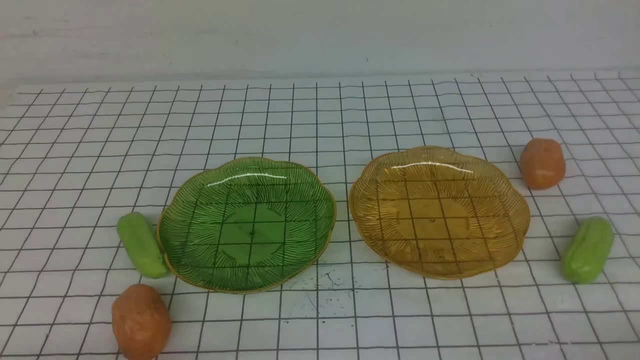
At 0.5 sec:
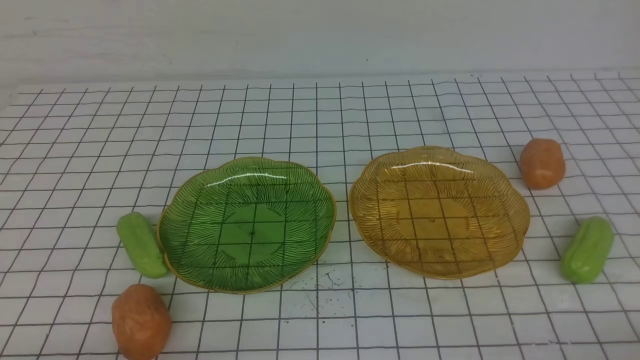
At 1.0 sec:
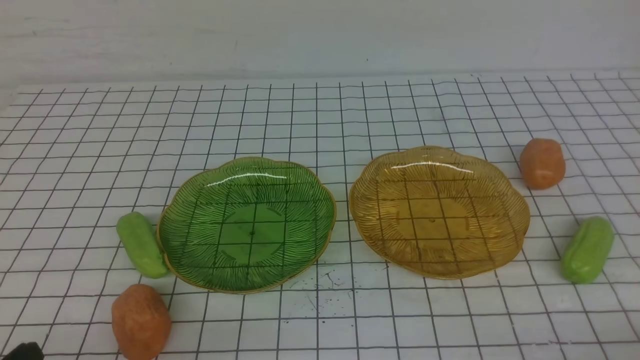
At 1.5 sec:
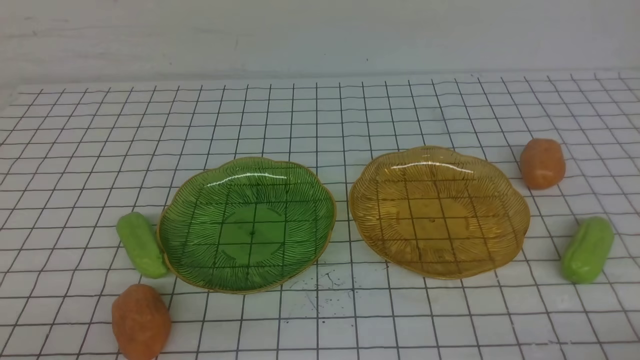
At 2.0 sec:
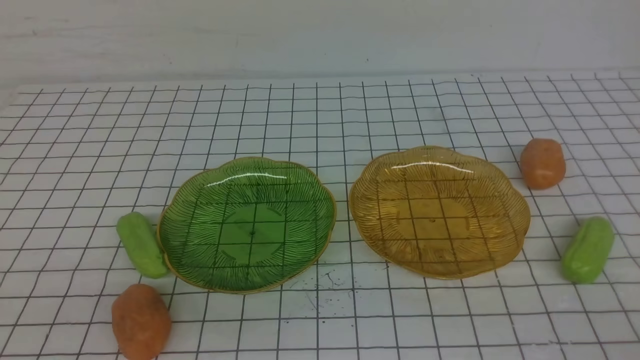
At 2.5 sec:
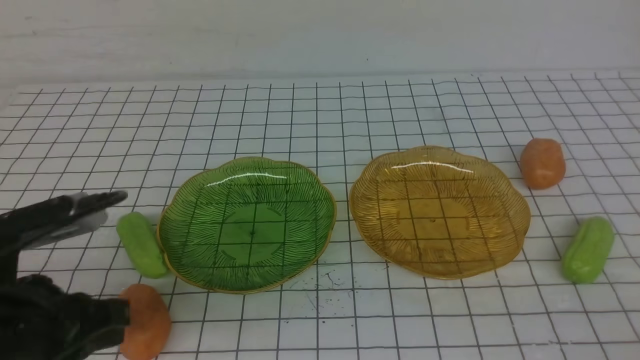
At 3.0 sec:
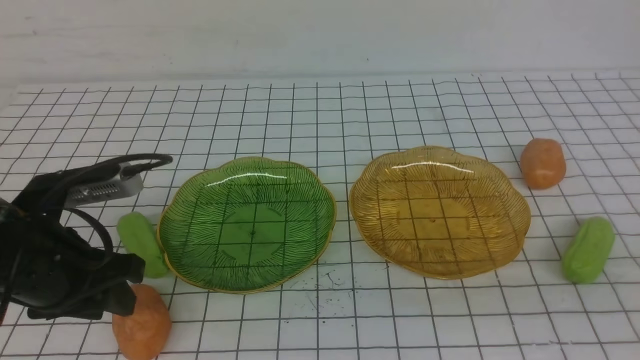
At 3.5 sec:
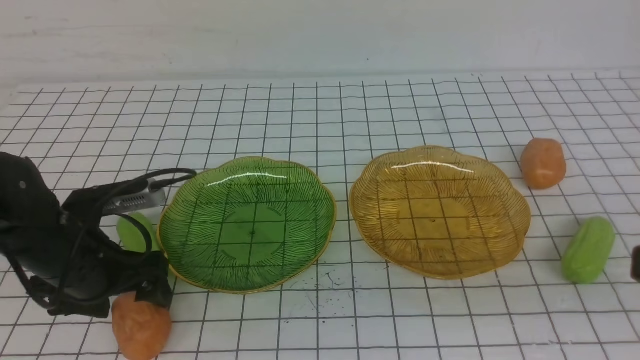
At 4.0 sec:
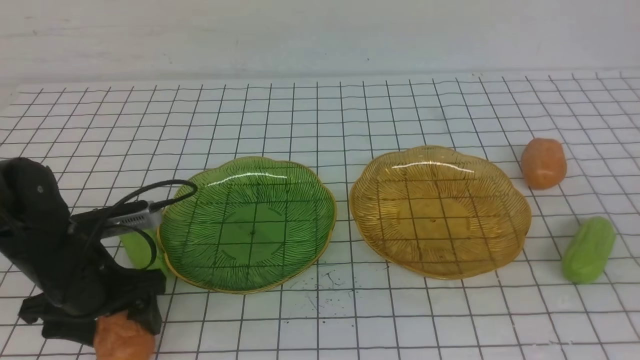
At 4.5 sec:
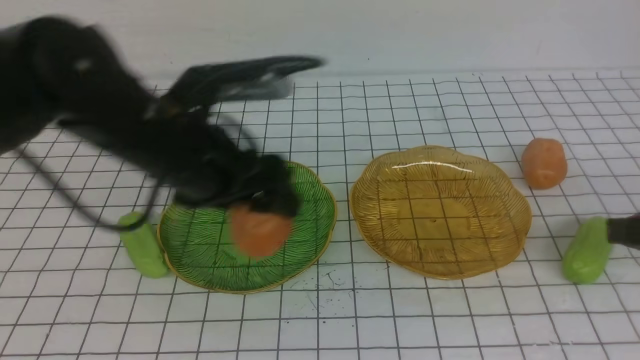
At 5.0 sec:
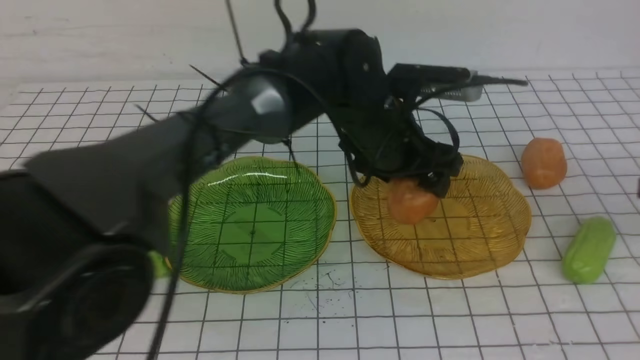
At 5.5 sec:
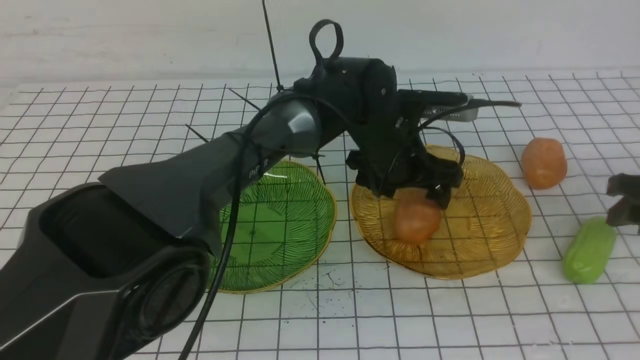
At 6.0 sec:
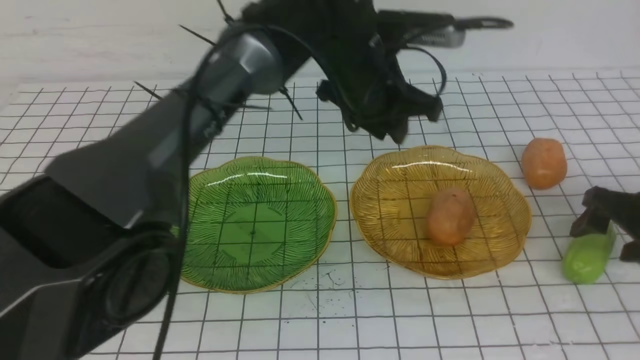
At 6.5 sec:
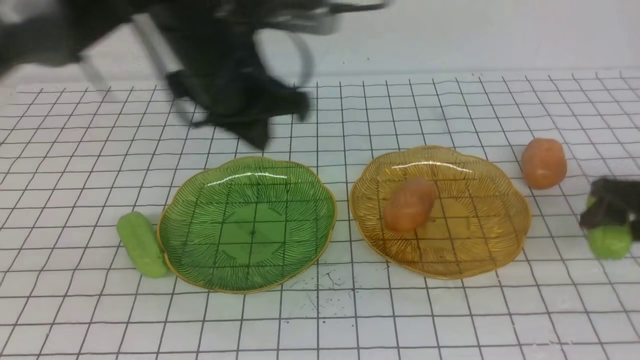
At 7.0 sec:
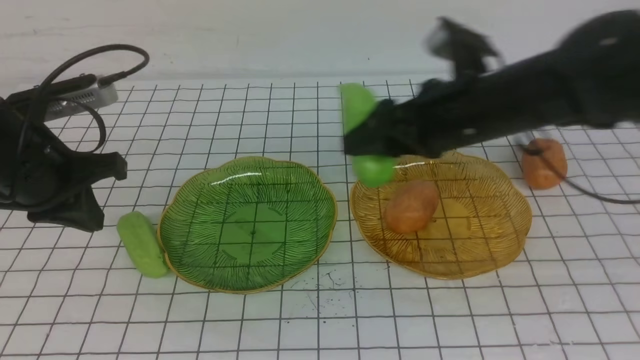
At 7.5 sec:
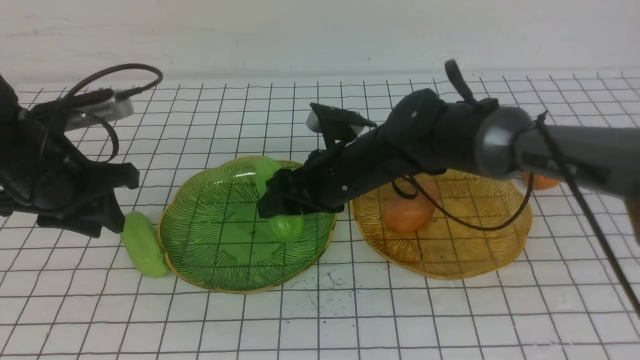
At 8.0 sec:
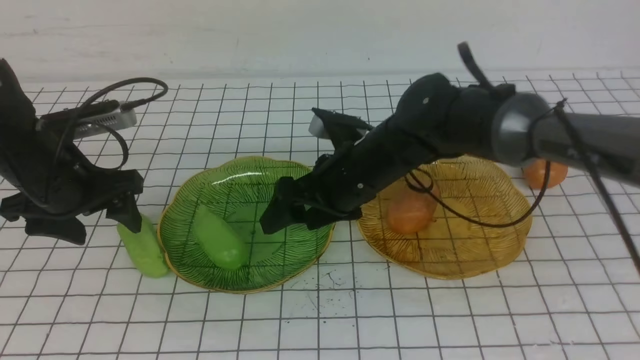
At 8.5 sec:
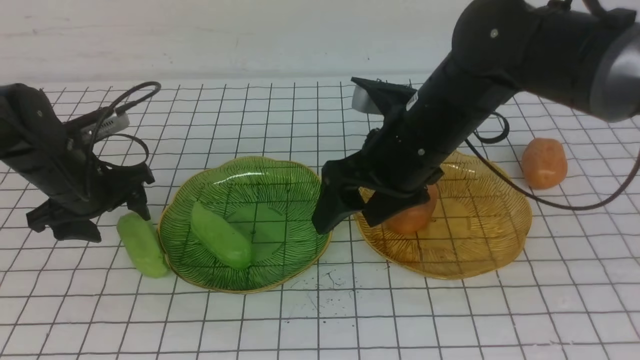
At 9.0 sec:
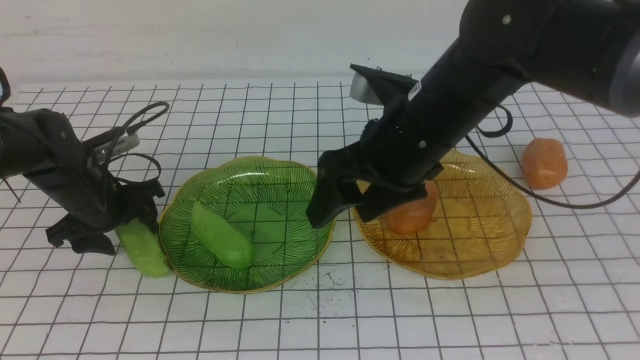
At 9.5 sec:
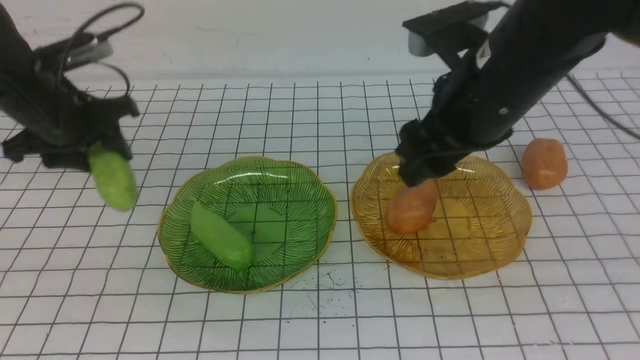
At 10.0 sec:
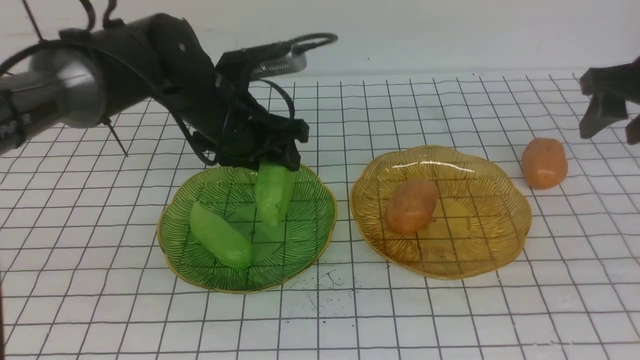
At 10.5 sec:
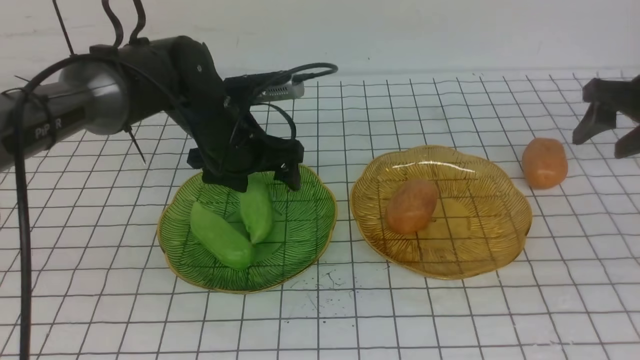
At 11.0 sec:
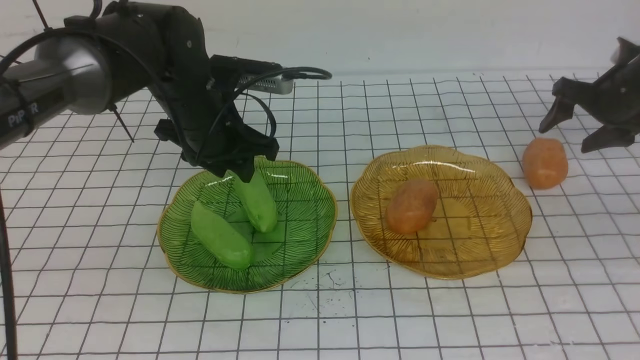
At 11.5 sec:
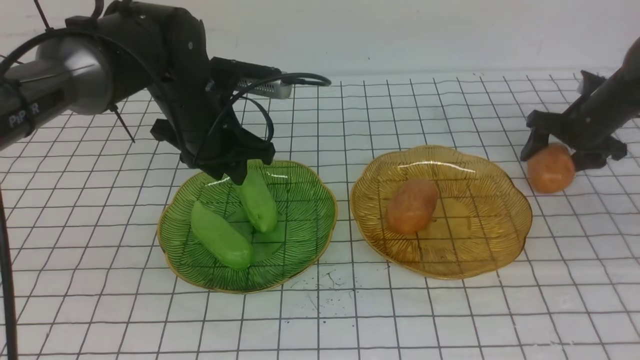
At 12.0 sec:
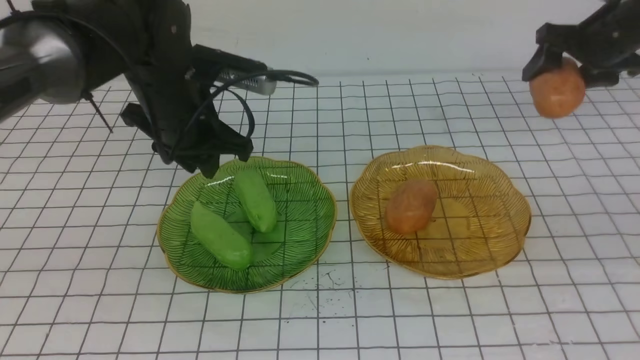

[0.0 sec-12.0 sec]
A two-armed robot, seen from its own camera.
Step, 0.0 sec to 5.5 sec: Grab a potato with your left arm and put it on the right plate.
Step, 6.0 sec to 7.5 sec: Grab the chayote with your right arm and put it on the left plate.
Step, 8.0 sec to 10.5 sec: use the left arm to grab a chayote and put it into the left plate.
2.0 sec to 4.0 sec: The right gripper is displaced upward and forward by about 15 cm. Meanwhile the left gripper is displaced forward by some 20 cm, and opens.
4.0 sec to 6.0 sec: The right gripper moves forward and downward, approximately 25 cm, and opens up; the left gripper is displaced to the right, forward and upward by approximately 30 cm, and closes.
6.0 sec to 8.0 sec: The grippers both shift to the left by some 30 cm. The left gripper opens up.
8.0 sec to 10.0 sec: The left gripper moves to the right and forward, some 15 cm; the right gripper heads to the right, covering some 30 cm.
10.0 sec to 12.0 sec: The left gripper changes place by about 5 cm, and closes up, while the right gripper is displaced forward by approximately 10 cm, and goes downward and returns, roughly 15 cm each way.

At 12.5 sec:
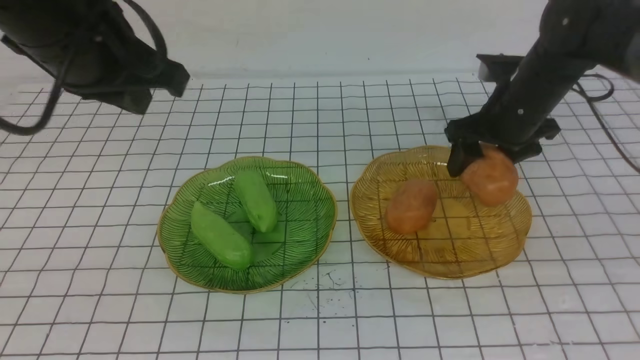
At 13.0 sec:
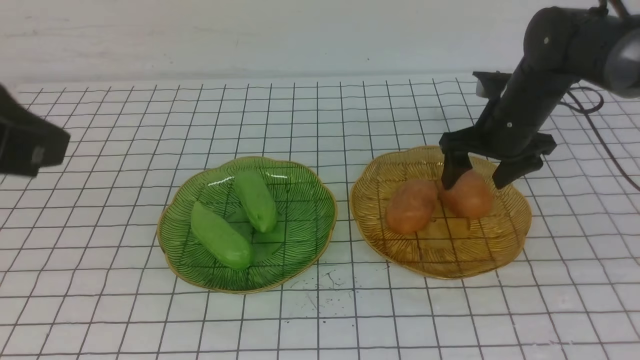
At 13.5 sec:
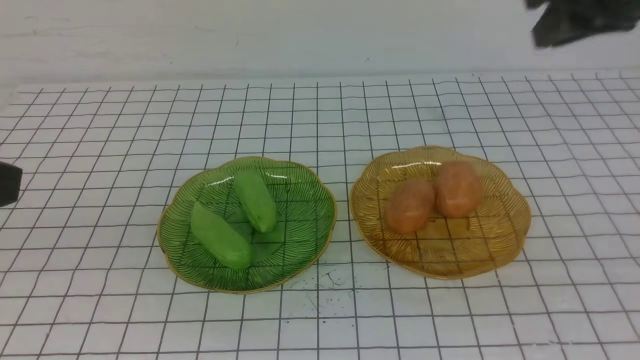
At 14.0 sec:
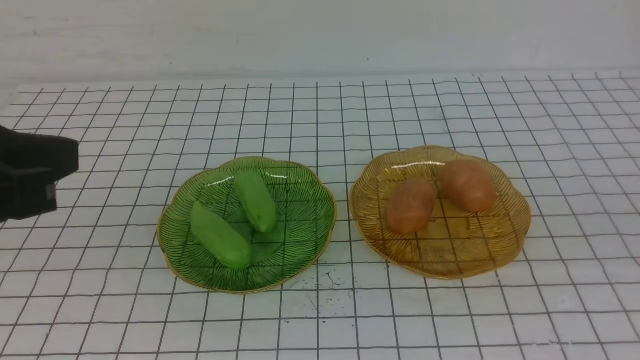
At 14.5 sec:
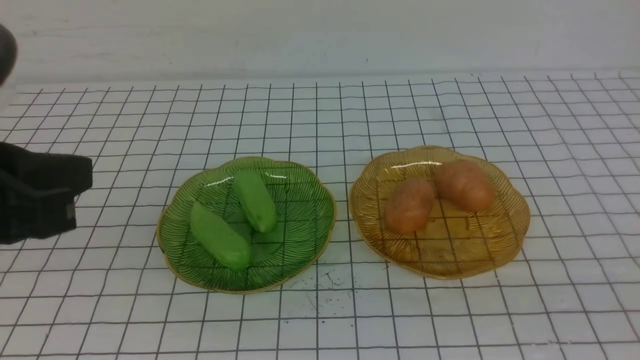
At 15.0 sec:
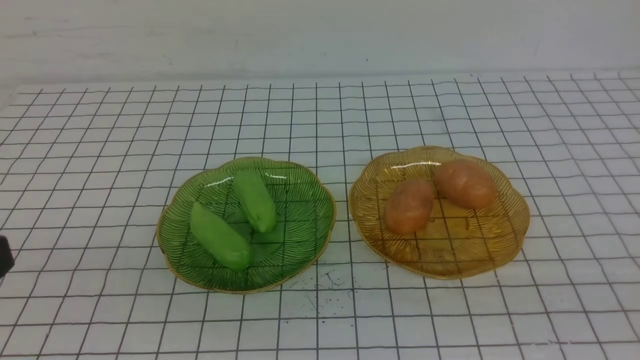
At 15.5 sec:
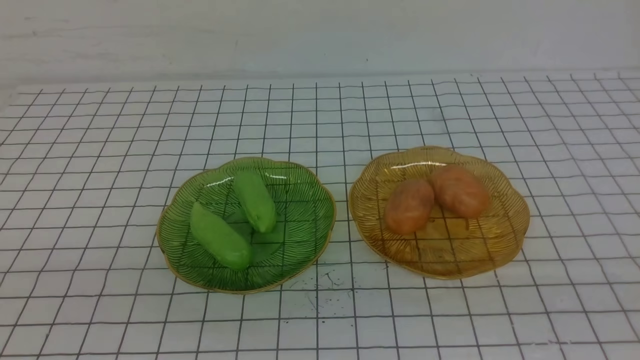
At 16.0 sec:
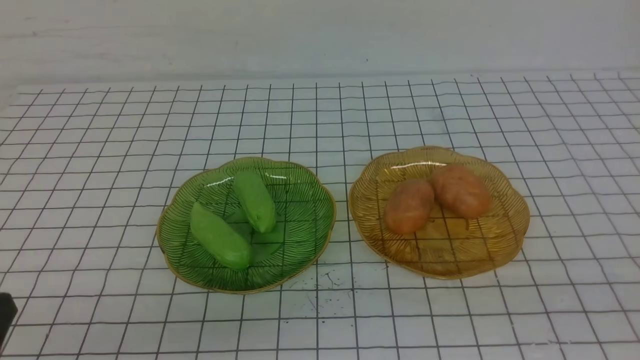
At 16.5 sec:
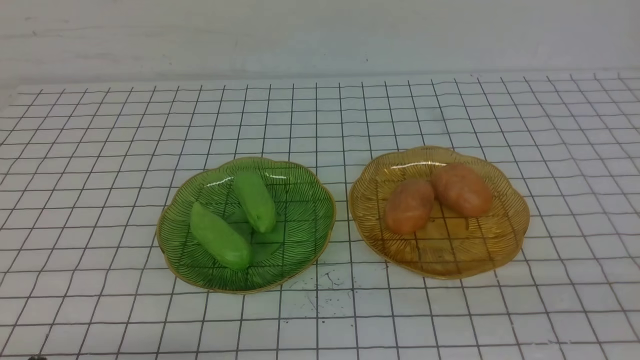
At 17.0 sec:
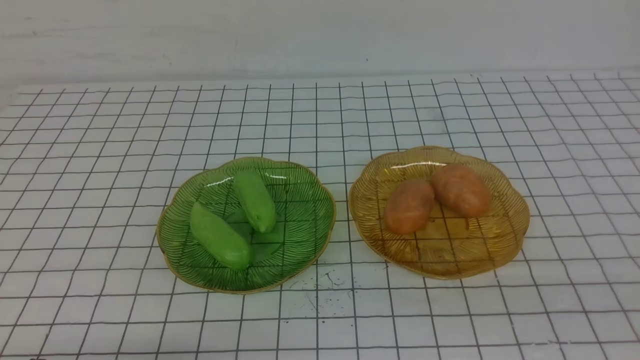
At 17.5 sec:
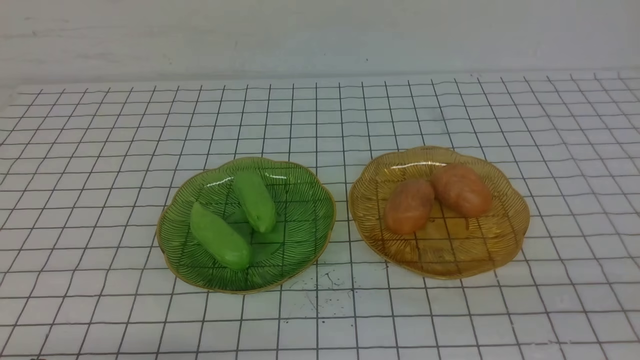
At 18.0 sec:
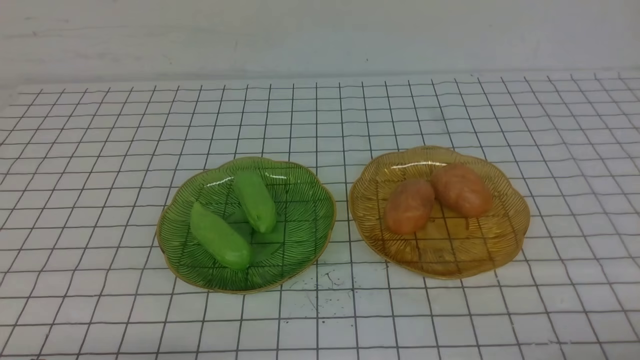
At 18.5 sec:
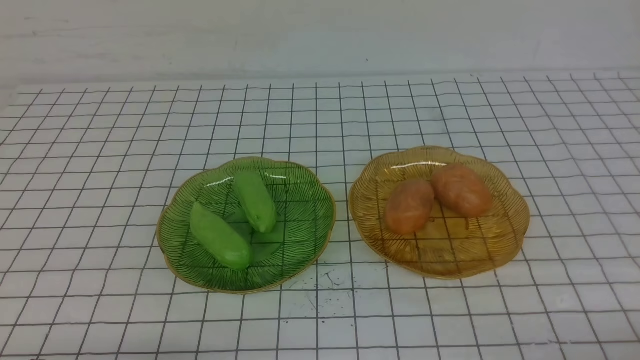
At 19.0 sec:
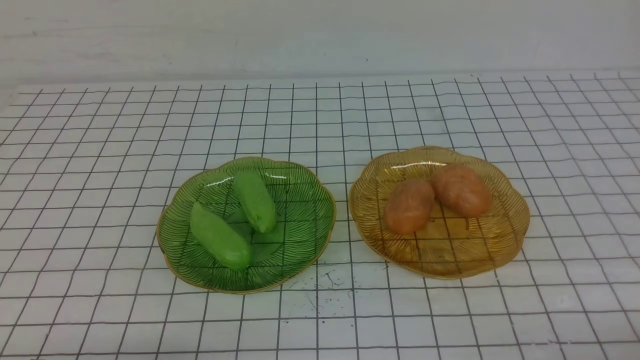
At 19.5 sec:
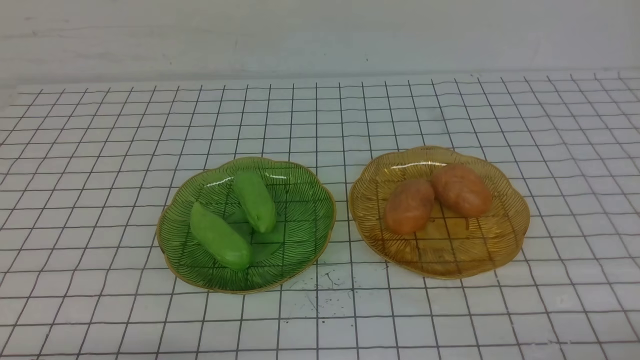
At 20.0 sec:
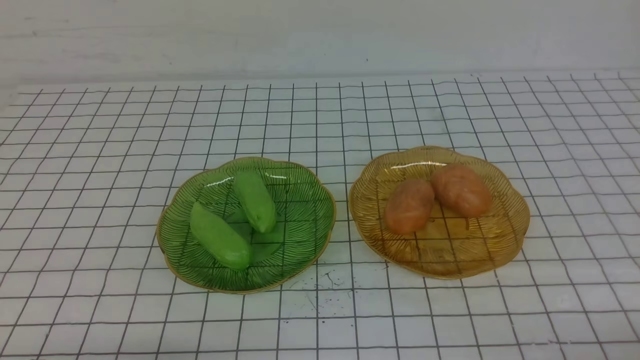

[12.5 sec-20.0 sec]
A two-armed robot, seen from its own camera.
12.5 sec to 14.5 sec: The left gripper shifts approximately 15 cm backward. Meanwhile the right gripper moves backward, about 40 cm, and closes up.
14.5 sec to 16.5 sec: The left gripper shifts about 20 cm downward.
